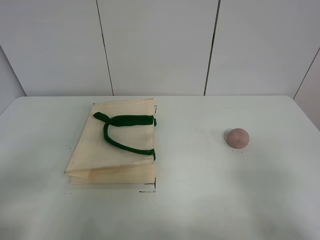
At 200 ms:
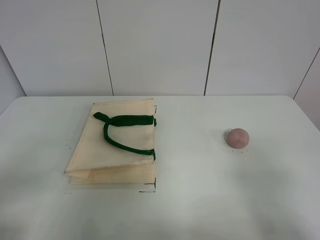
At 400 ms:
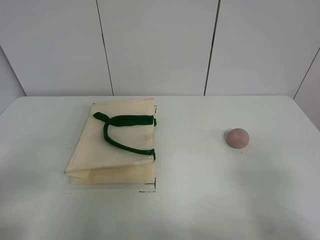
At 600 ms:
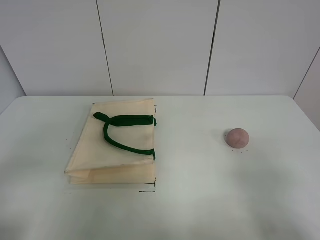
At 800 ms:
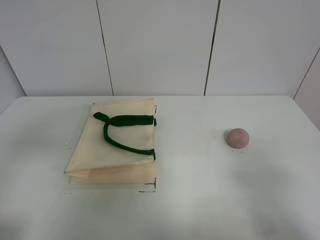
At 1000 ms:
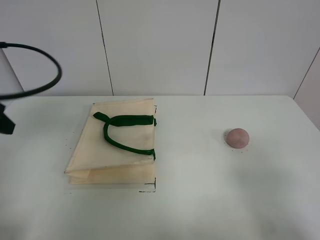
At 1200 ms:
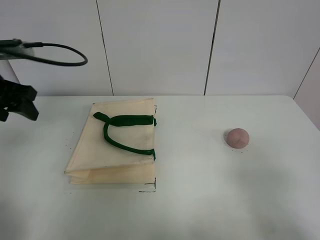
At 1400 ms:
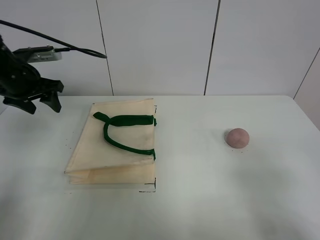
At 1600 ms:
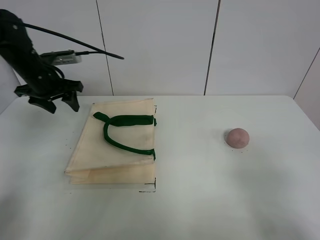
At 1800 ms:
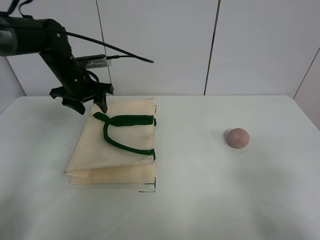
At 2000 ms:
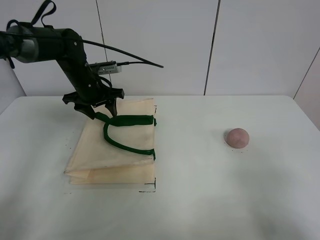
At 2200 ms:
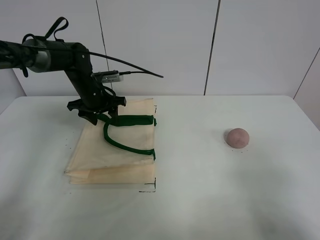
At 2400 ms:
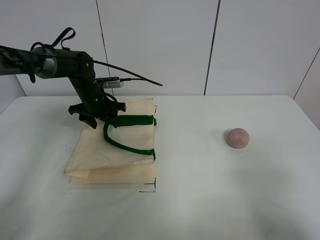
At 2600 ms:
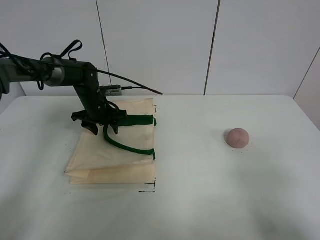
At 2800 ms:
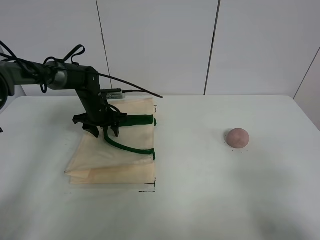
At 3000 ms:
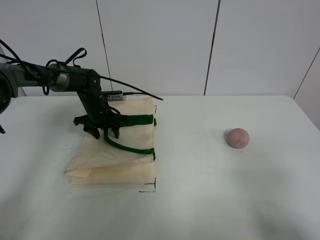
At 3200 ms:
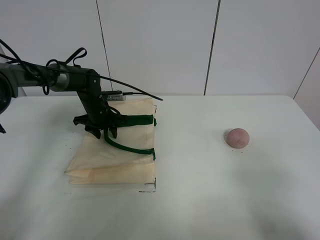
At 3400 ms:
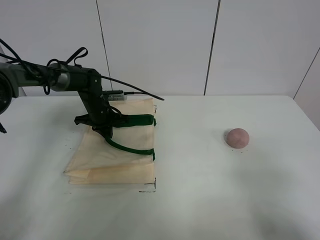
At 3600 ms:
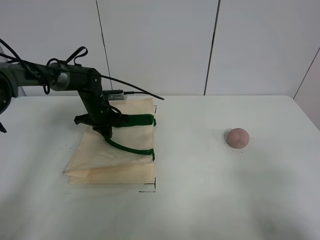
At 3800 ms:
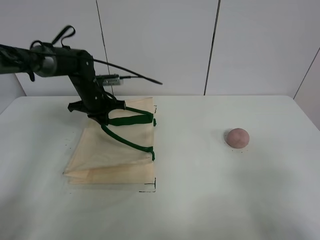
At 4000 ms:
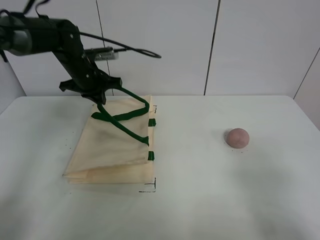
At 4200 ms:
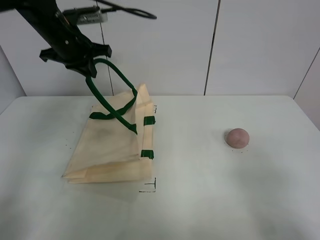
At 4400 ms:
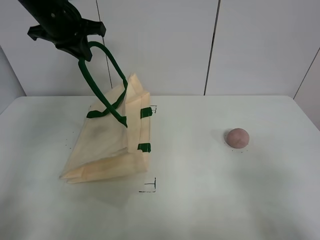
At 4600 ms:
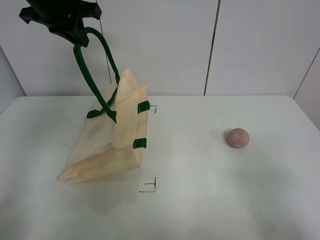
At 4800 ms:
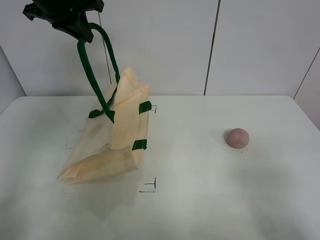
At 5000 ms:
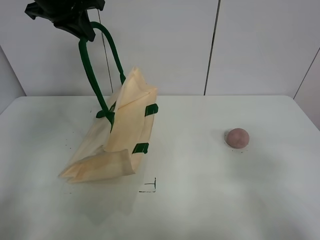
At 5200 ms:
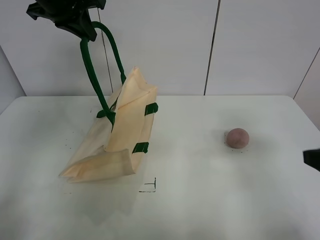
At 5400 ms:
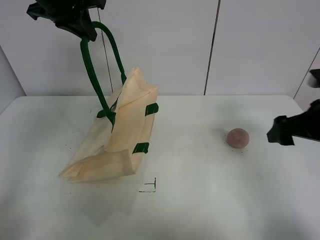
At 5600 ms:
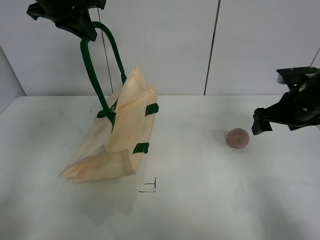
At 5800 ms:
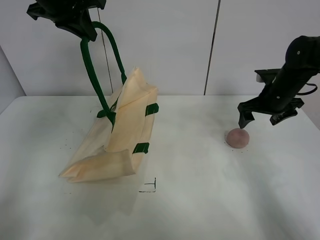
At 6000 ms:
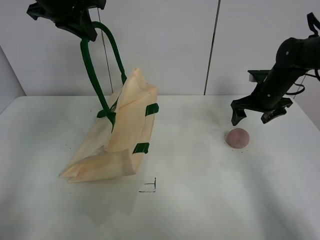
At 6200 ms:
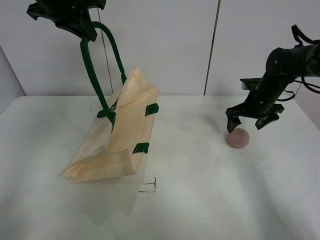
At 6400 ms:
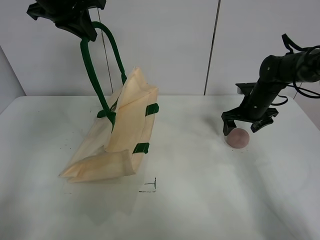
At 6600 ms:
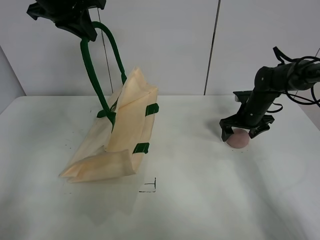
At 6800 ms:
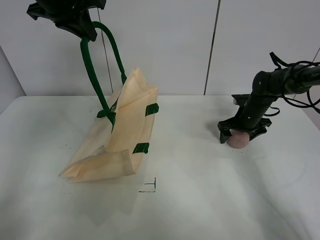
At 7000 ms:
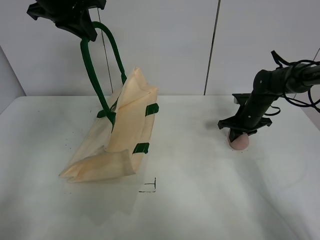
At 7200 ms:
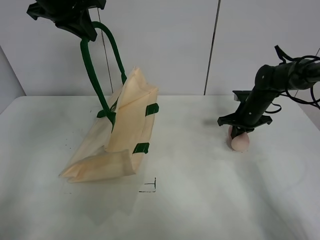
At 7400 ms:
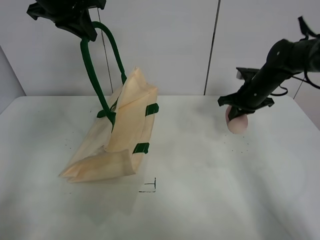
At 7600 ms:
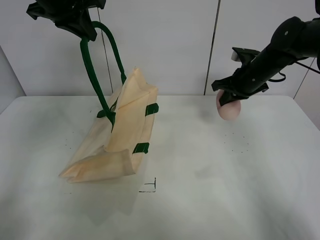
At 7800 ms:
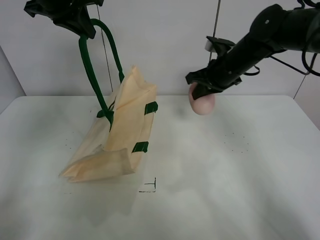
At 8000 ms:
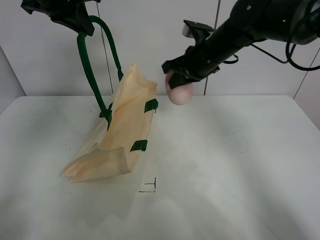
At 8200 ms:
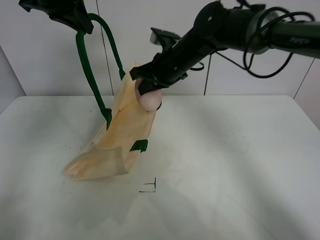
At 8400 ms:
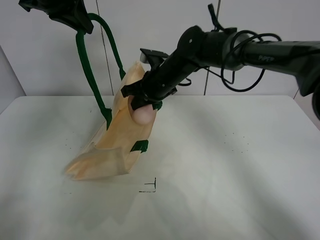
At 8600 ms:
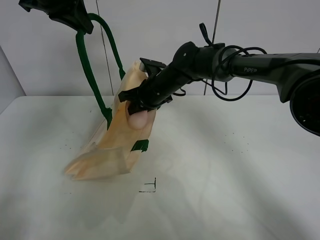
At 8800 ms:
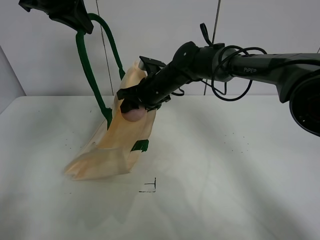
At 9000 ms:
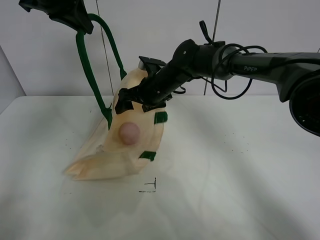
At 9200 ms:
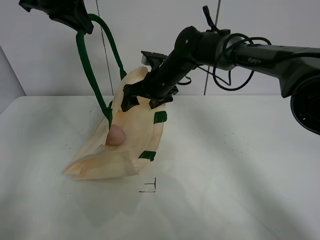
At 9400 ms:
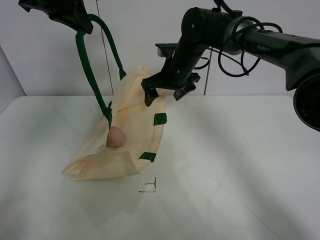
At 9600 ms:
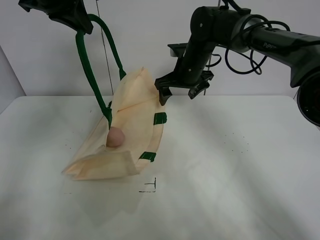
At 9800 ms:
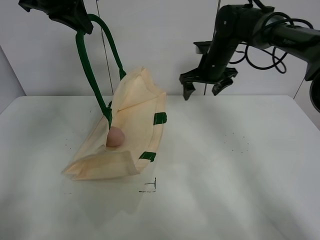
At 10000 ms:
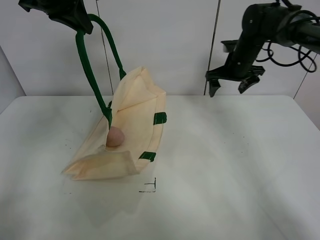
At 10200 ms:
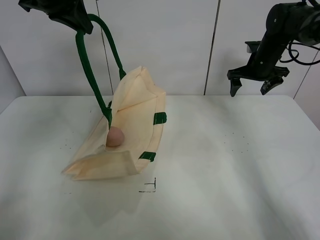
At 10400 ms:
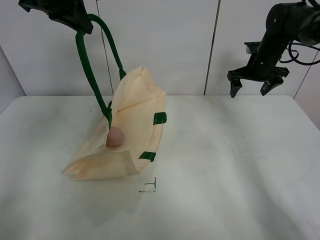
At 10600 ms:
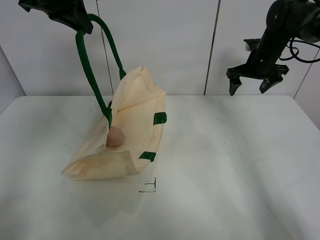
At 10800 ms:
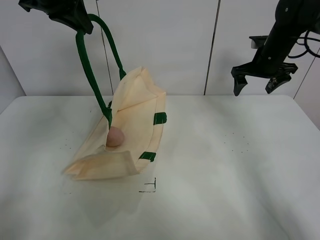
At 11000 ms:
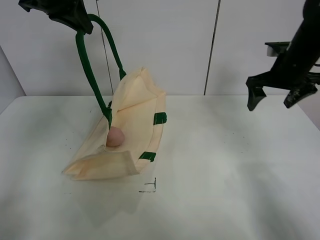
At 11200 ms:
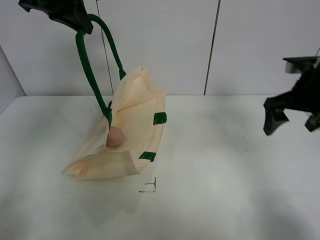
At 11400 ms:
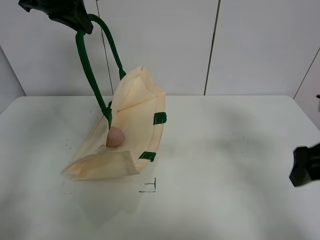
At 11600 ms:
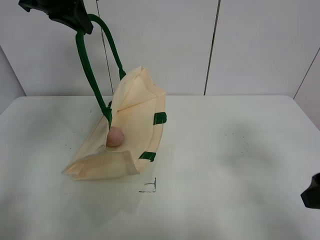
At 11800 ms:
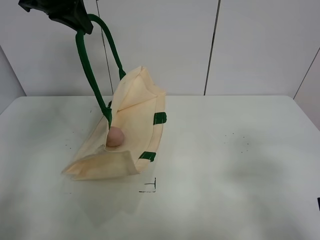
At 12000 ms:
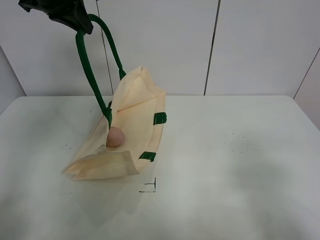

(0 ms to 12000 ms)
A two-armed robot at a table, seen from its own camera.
Task of the whole recording: open the white linen bag and put the peach in the bag.
Step, 0 ms - 4600 ms: Lift the handbag with left gripper.
Step, 4800 ms - 7000 ms: Grasp the peach with right gripper.
Step, 7200 ms - 9000 ms: Place the peach in the handbag with right gripper.
0 ms - 1600 ms: The left gripper heads forward, covering about 40 cm.
1600 ms - 3000 ms: The left gripper heads downward and to the right, covering some 15 cm.
3000 ms - 4400 ms: The left gripper heads upward, covering about 25 cm, and closes up.
4400 ms - 6000 ms: The right gripper is displaced forward by some 40 cm.
6000 ms - 7600 ms: The right gripper travels to the left and upward by about 10 cm, and closes its fingers.
7600 ms - 9000 ms: The right gripper shifts about 20 cm to the left, and opens up.
9000 ms - 10400 ms: The right gripper moves to the right, about 25 cm.
10400 ms - 12000 ms: The right gripper shifts roughly 50 cm backward.

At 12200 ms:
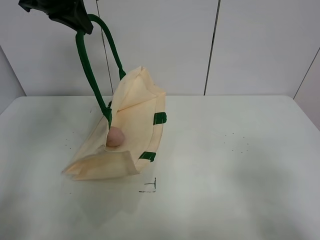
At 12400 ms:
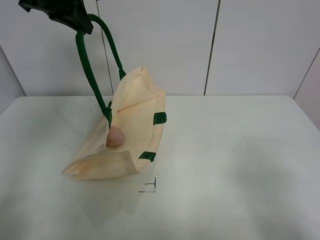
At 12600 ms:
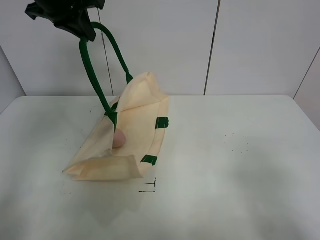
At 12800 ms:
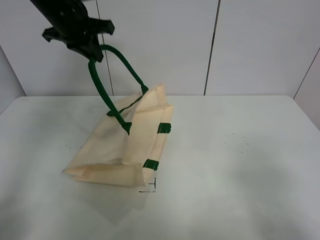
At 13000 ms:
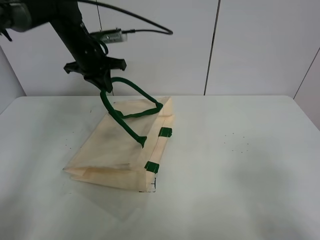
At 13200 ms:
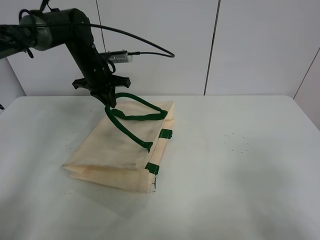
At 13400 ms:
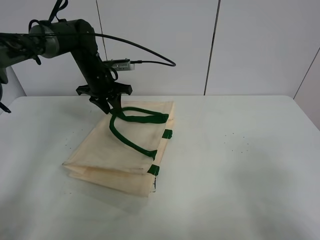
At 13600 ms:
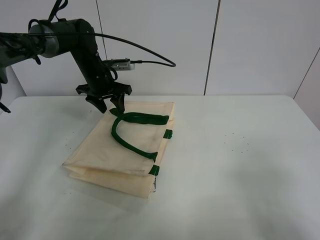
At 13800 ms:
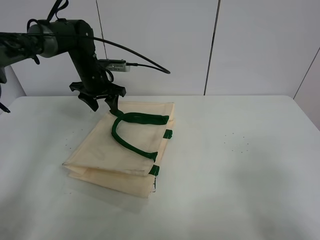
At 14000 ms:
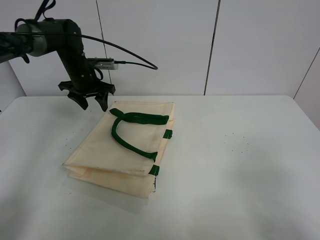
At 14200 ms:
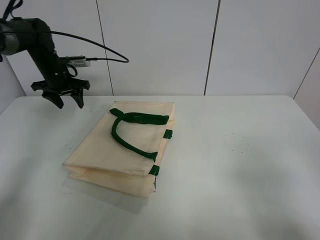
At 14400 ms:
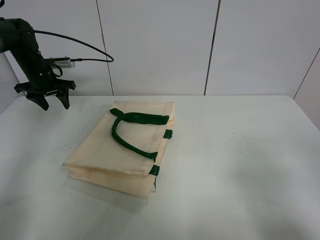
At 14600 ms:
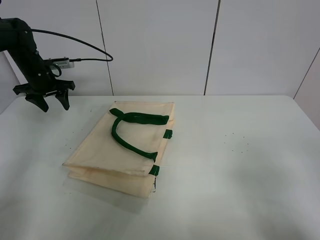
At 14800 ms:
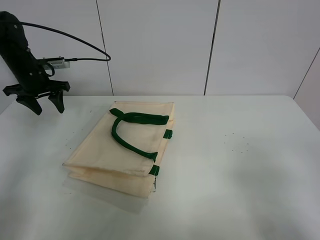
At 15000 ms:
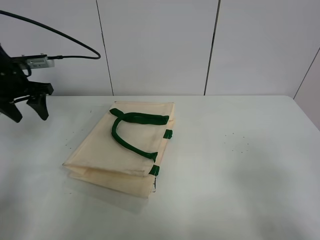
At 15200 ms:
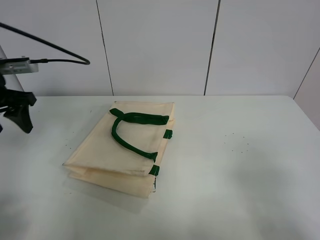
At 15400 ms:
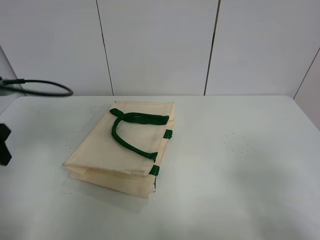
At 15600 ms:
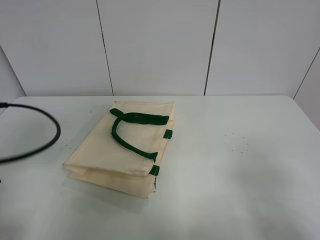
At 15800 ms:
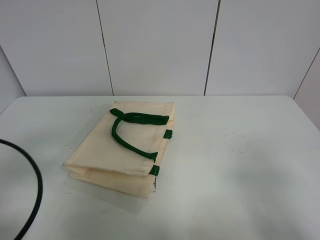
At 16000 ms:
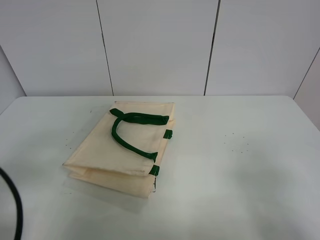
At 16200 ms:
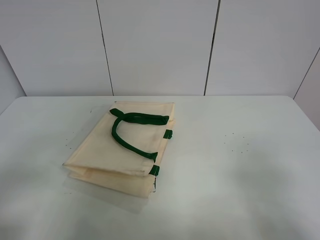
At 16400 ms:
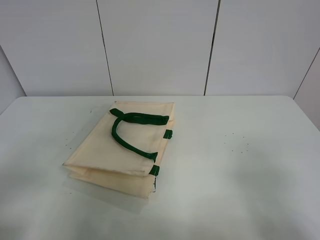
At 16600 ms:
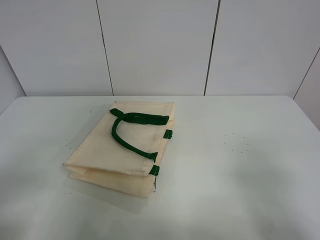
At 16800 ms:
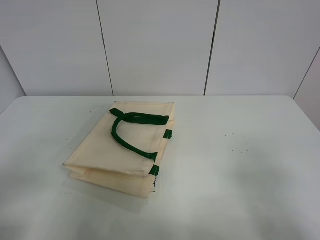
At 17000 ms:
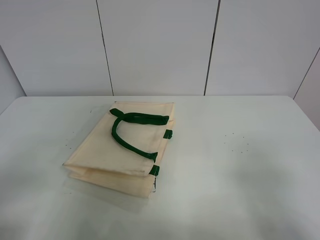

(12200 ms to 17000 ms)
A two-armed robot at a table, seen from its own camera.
Task of the whole recording: open the white linen bag and put the peach in the bag.
12200 ms - 13800 ms: The left gripper moves downward and forward, roughly 25 cm, and opens its fingers.
13800 ms - 15400 ms: The left gripper heads backward and to the left, covering approximately 30 cm.
15400 ms - 17000 ms: The left gripper moves backward, roughly 20 cm.
